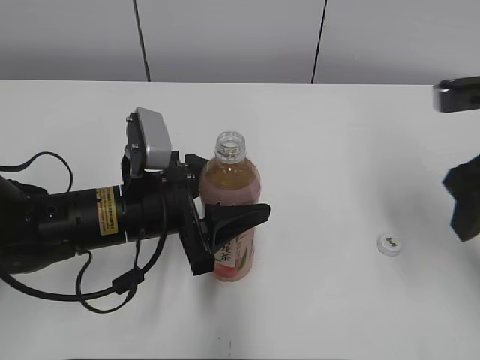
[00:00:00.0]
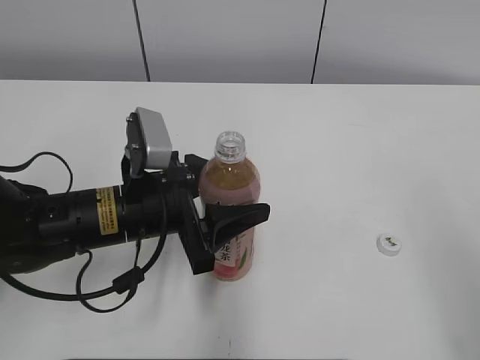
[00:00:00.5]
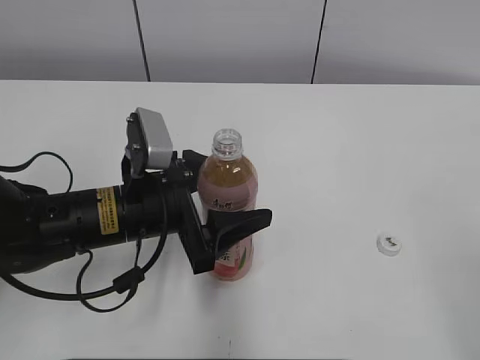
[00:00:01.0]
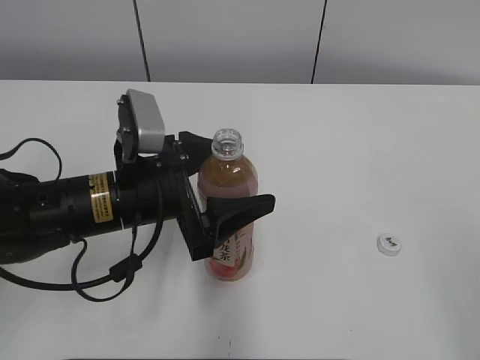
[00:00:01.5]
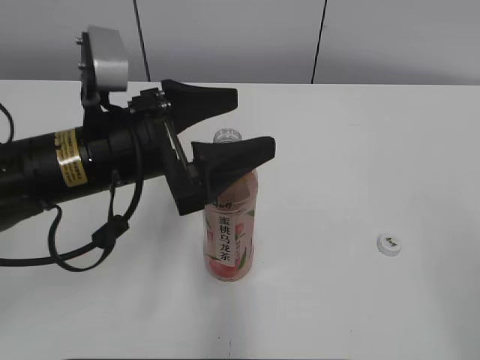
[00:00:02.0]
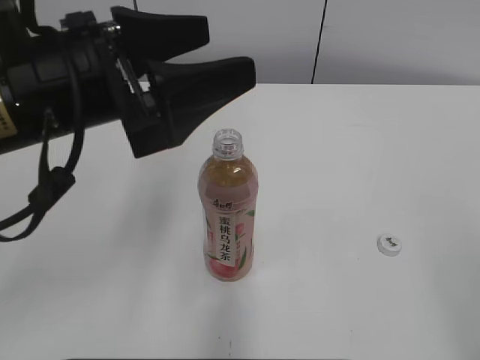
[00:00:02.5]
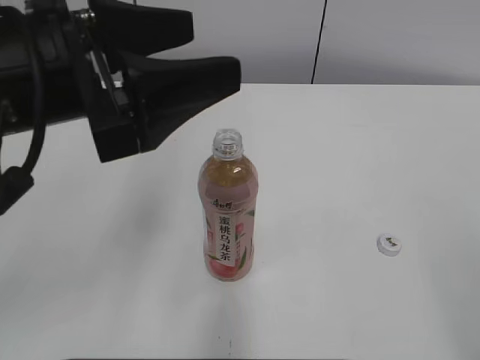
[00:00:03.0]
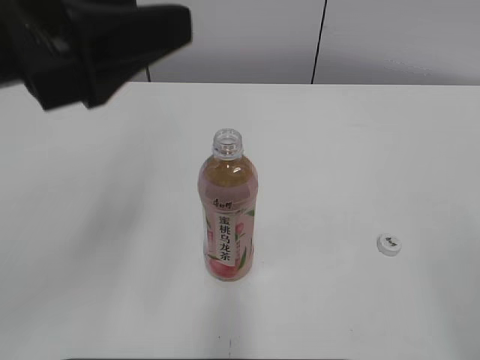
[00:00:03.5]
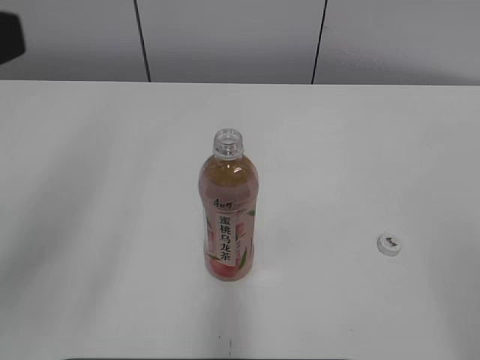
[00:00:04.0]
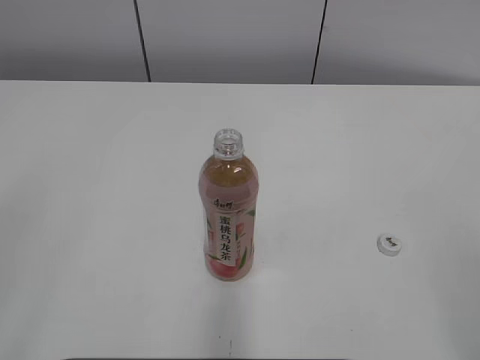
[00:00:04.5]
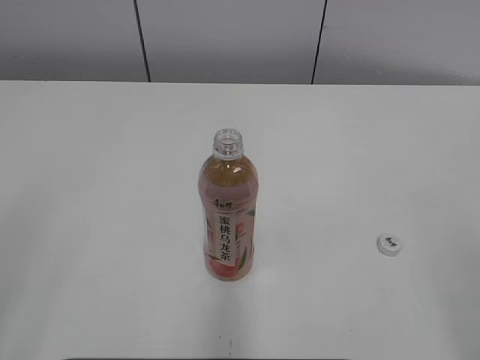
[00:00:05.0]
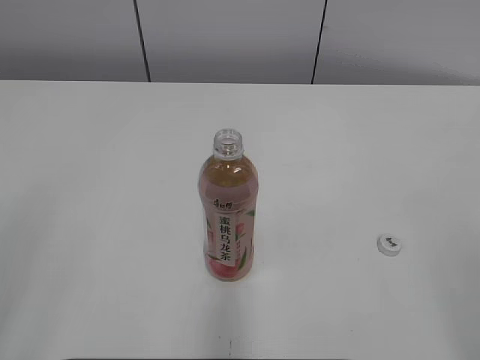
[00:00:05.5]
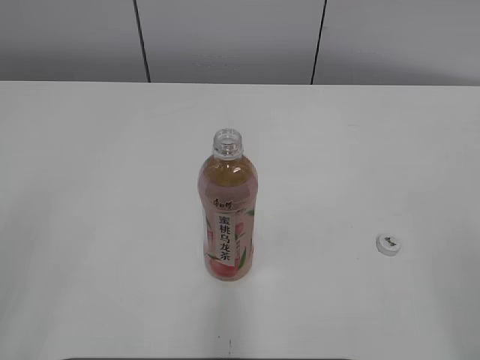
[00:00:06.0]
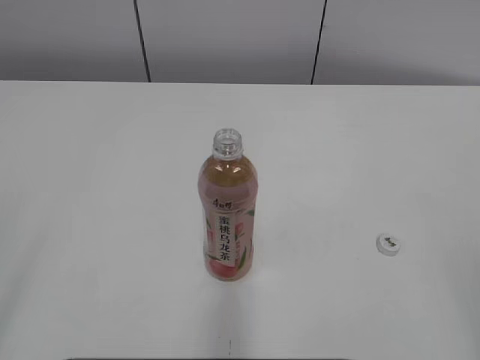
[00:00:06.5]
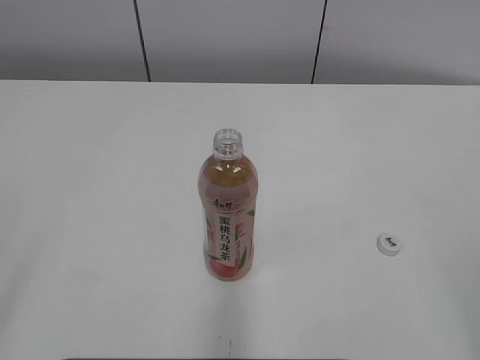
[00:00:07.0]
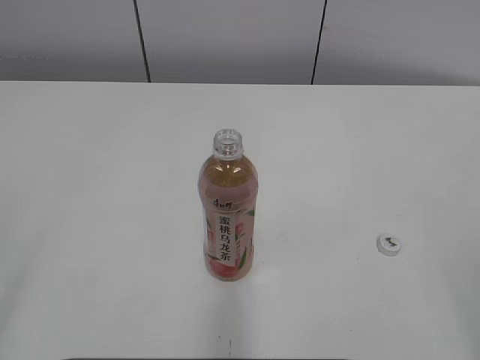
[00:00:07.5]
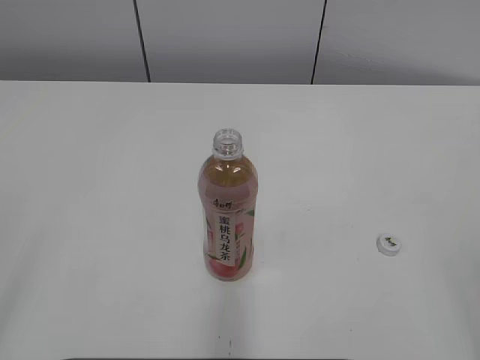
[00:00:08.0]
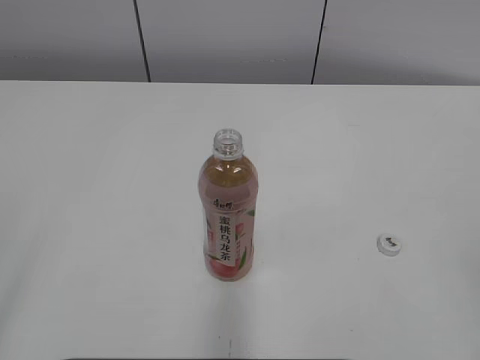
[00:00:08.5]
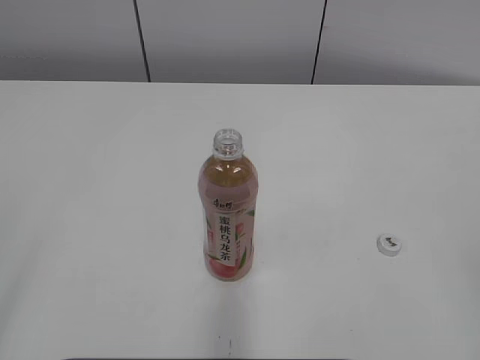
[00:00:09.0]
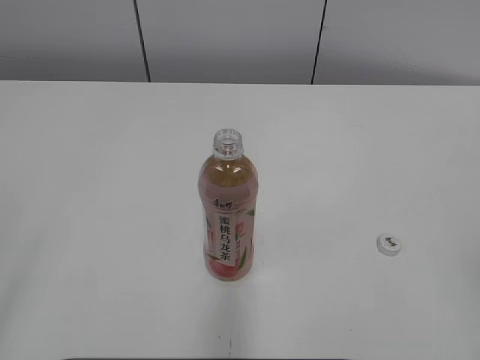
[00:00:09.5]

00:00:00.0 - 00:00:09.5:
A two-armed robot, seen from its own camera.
00:00:00.0 - 00:00:02.0: The right gripper heads backward, covering approximately 25 cm; the left gripper heads upward, covering roughly 5 cm, and opens.
00:00:02.0 - 00:00:04.0: The left gripper travels upward, to the left and backward by about 20 cm.
00:00:04.0 - 00:00:05.5: The left gripper heads backward and to the left, covering about 10 cm.
